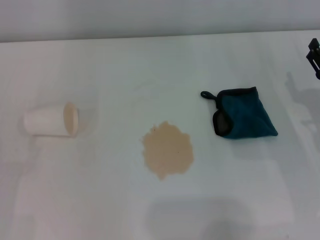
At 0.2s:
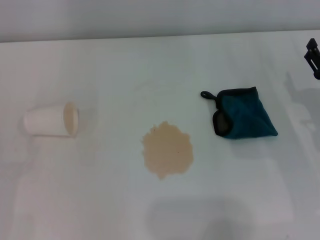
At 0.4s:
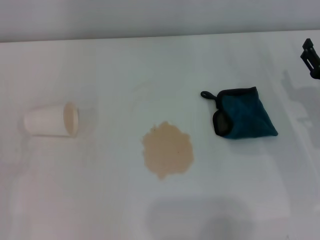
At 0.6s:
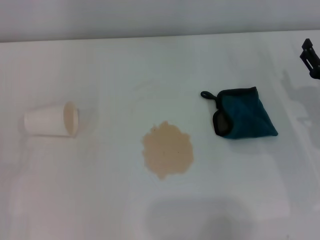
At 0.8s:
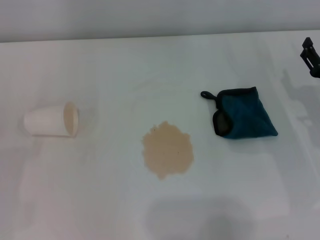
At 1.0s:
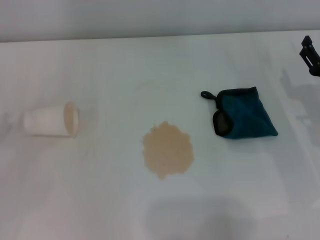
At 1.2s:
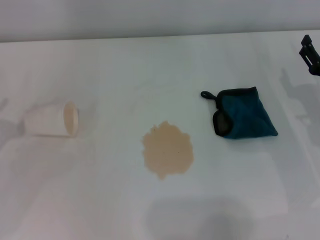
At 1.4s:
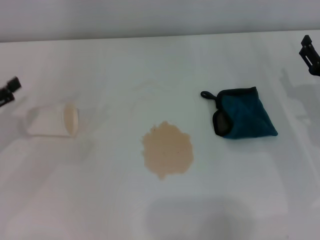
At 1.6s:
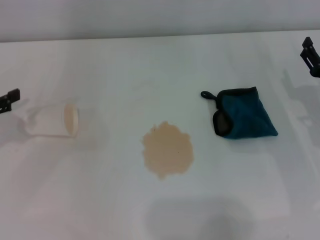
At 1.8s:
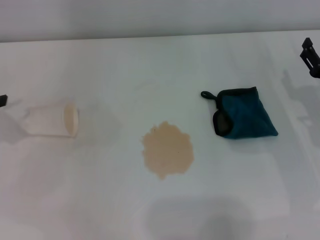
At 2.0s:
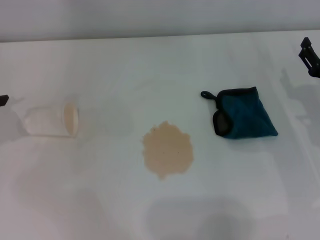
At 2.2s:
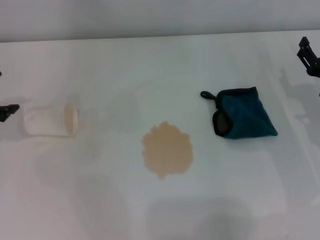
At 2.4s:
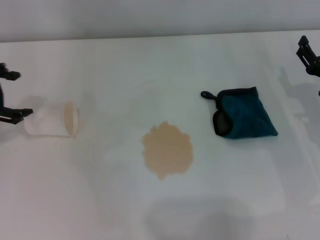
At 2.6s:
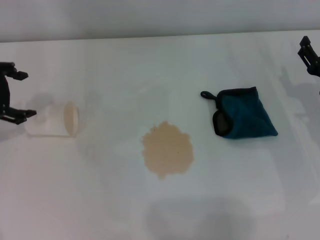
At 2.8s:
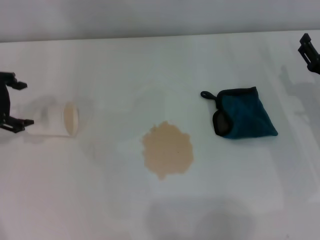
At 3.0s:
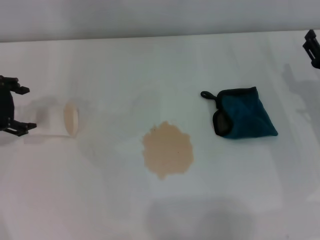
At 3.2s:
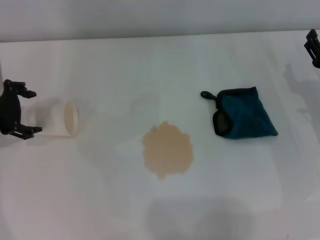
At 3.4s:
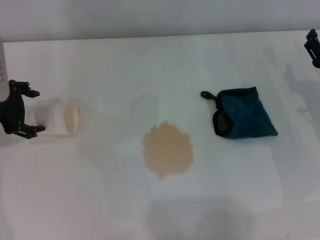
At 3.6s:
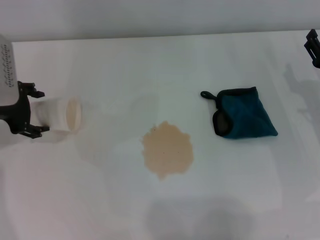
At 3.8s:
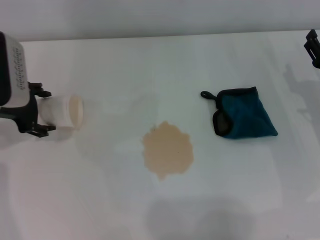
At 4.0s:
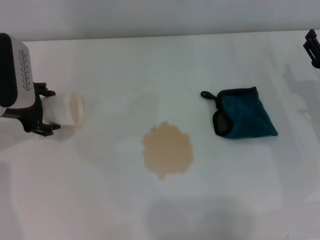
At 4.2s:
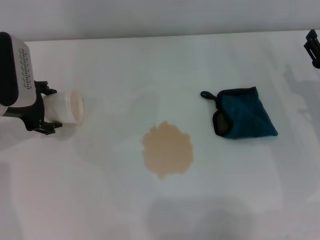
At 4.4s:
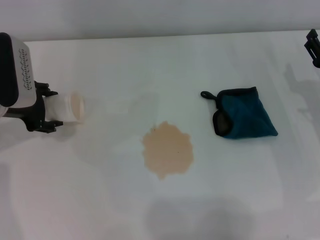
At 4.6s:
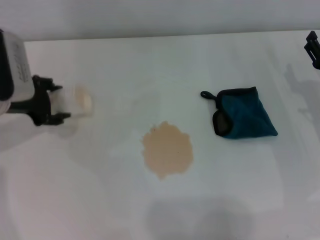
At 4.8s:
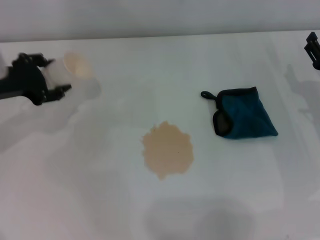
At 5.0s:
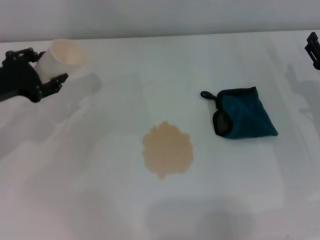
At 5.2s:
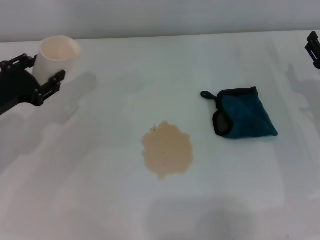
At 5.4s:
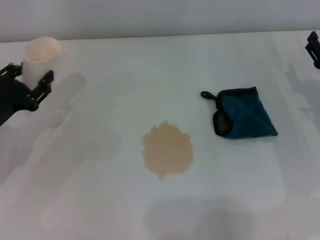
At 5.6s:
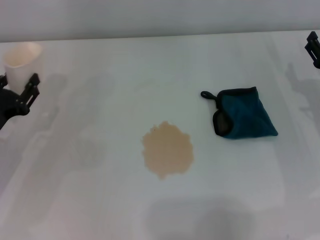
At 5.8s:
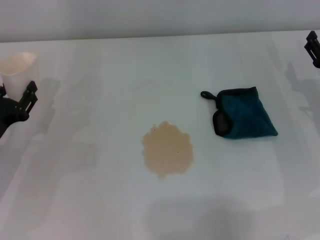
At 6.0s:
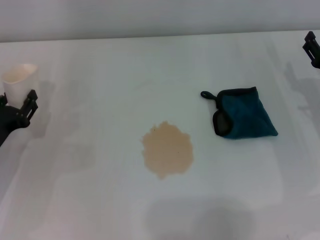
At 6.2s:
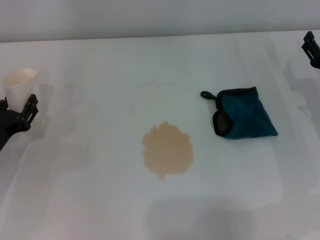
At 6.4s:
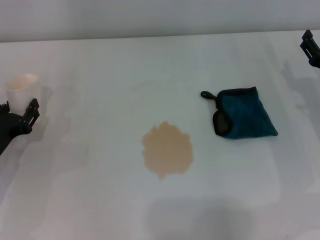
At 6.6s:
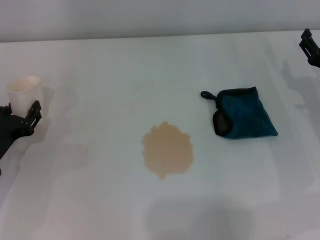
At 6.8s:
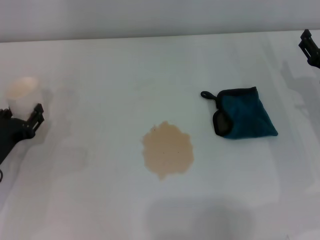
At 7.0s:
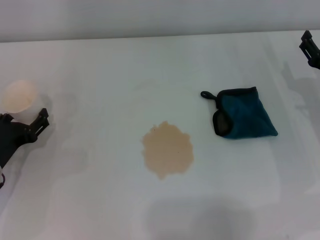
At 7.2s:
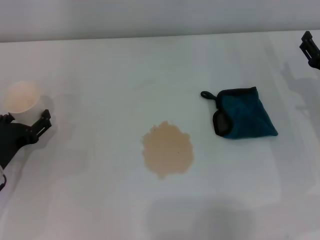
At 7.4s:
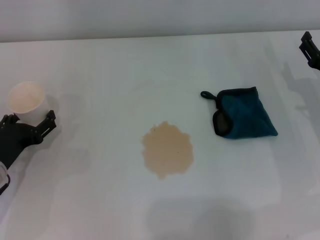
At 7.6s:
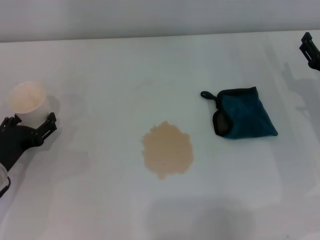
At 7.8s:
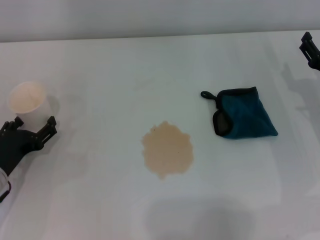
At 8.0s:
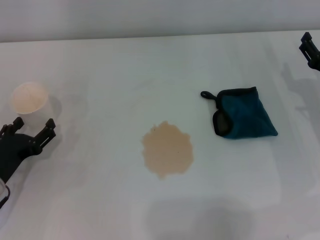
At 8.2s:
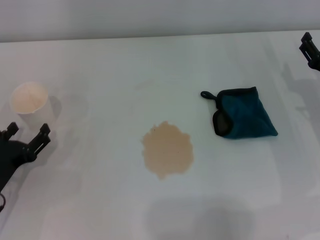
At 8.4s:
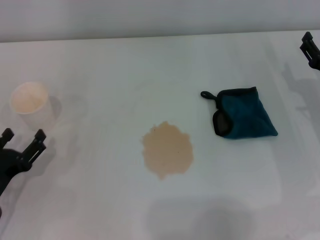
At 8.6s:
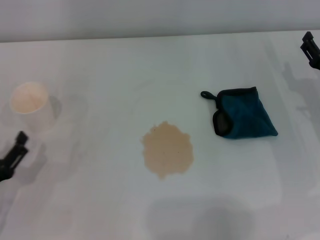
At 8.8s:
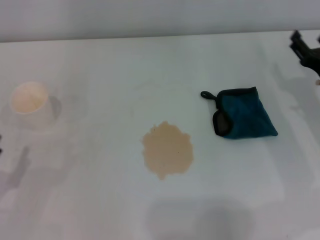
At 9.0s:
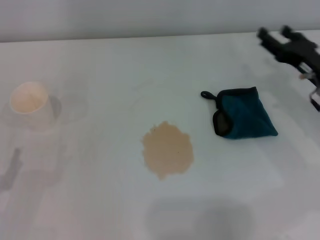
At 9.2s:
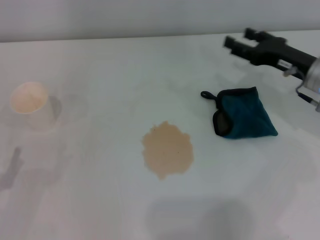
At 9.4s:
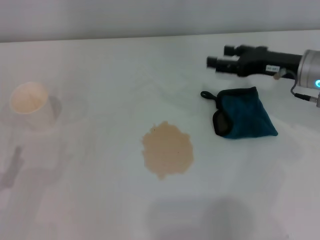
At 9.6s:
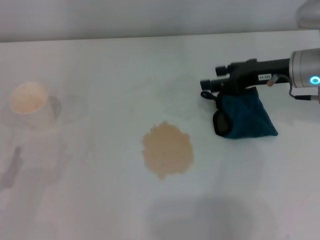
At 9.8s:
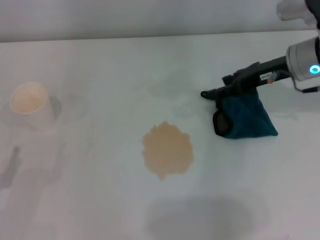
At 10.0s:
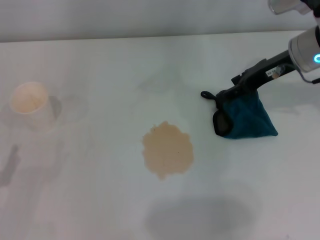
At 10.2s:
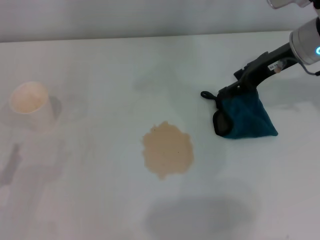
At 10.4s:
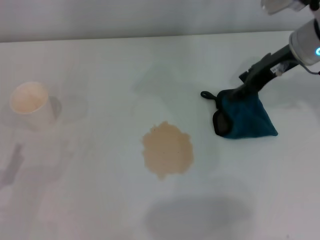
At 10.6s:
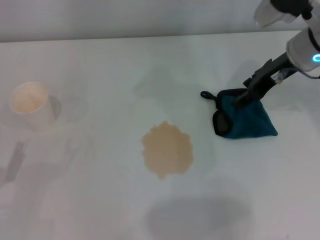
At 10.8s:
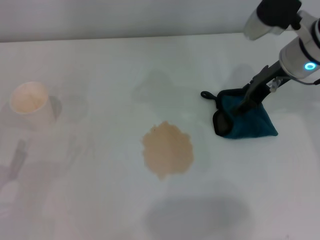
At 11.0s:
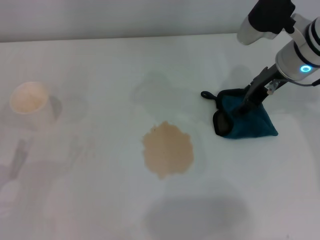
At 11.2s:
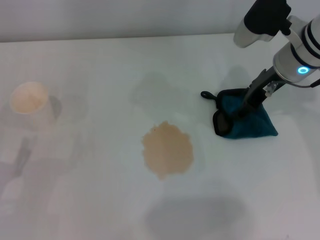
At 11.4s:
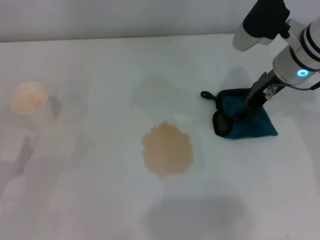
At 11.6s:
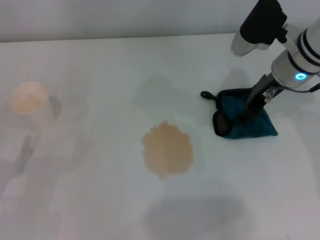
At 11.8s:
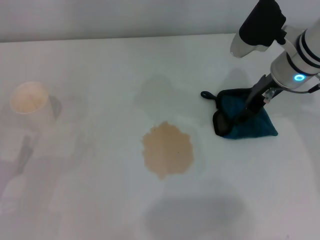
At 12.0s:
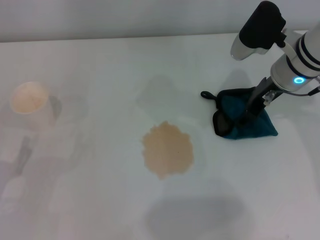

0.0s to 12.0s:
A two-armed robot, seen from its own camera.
Step, 0.0s to 4.2s: Grasp the paper cup with the left gripper.
Step, 4.4s to 7.4s: Stand the paper cup upright with the left gripper.
1.6s to 3.0s: The left gripper moves to the right and forward, about 10 cm.
3.0s to 4.4s: The left gripper moves approximately 5 cm.
4.4s to 6.0s: The left gripper shifts approximately 15 cm downward and backward, and closes up.
6.0s to 7.6s: The left gripper opens up.
7.6s to 9.0s: The left gripper shifts some 10 cm backward.
9.0s to 10.4s: The right gripper goes about 15 cm upward, forward and to the left.
10.4s to 12.0s: The grippers make only small movements.

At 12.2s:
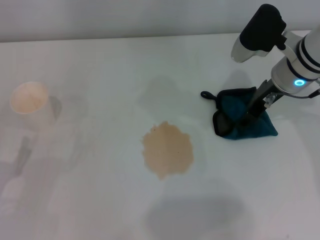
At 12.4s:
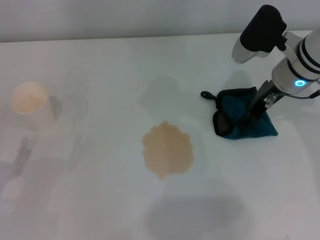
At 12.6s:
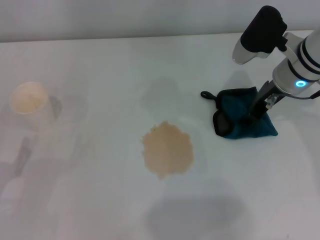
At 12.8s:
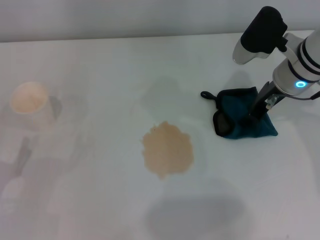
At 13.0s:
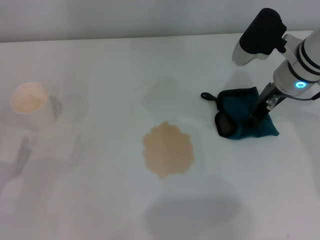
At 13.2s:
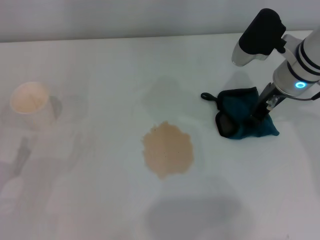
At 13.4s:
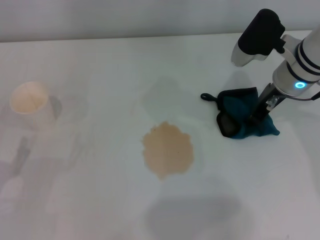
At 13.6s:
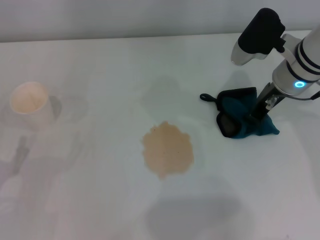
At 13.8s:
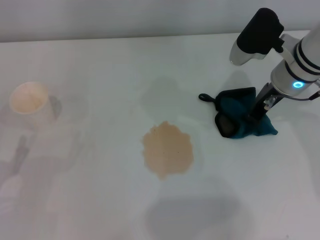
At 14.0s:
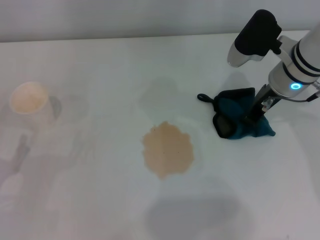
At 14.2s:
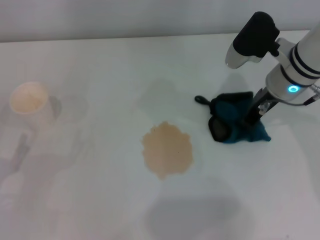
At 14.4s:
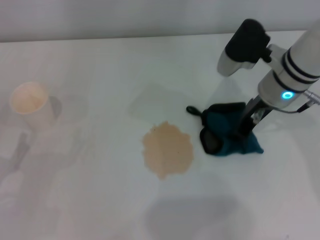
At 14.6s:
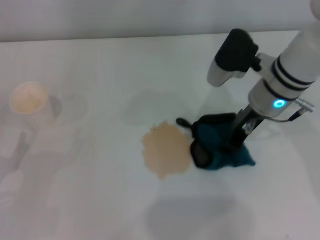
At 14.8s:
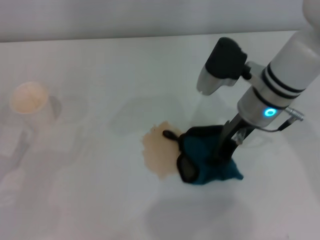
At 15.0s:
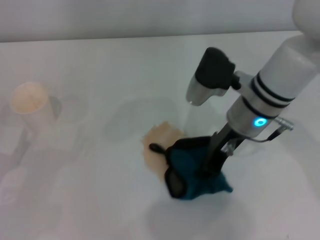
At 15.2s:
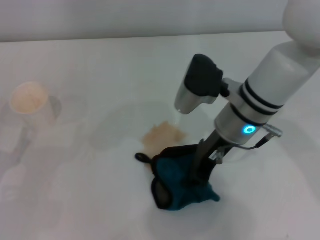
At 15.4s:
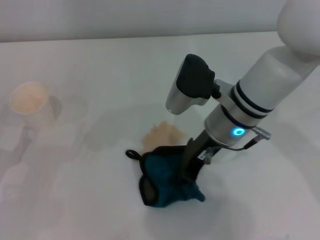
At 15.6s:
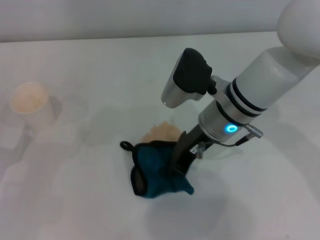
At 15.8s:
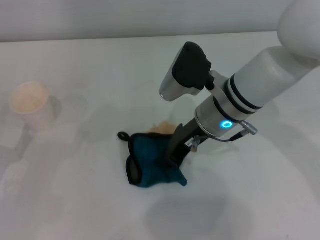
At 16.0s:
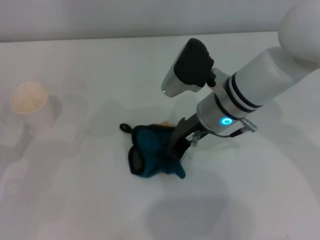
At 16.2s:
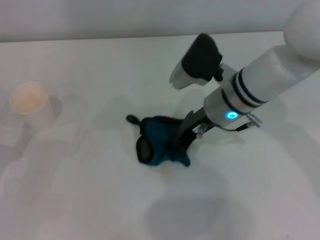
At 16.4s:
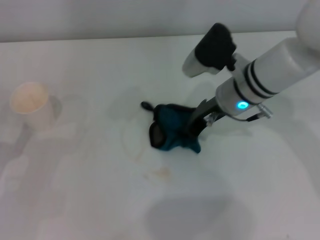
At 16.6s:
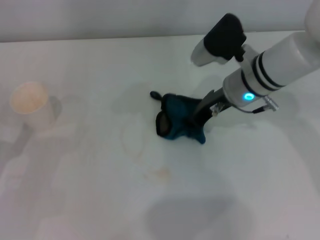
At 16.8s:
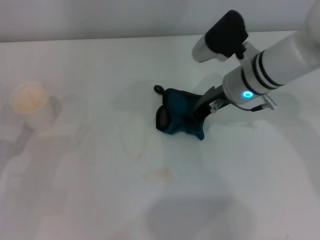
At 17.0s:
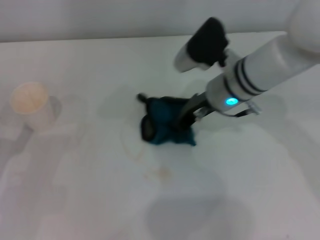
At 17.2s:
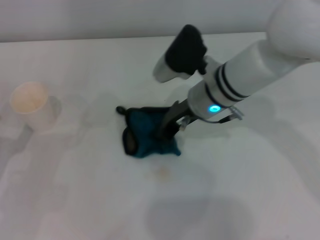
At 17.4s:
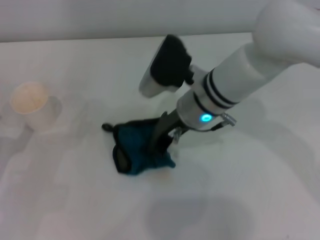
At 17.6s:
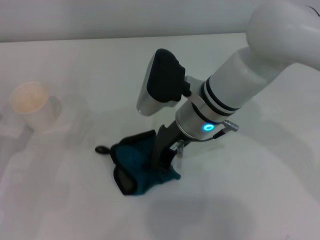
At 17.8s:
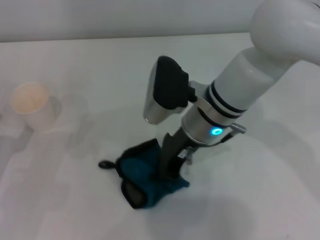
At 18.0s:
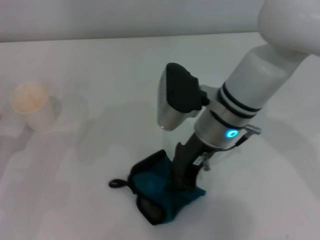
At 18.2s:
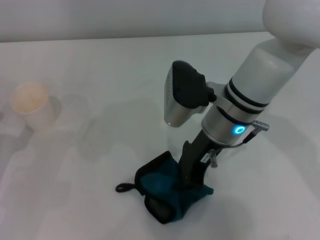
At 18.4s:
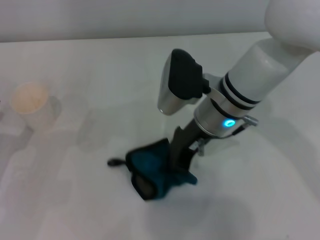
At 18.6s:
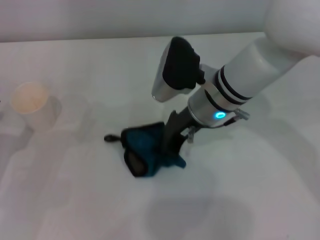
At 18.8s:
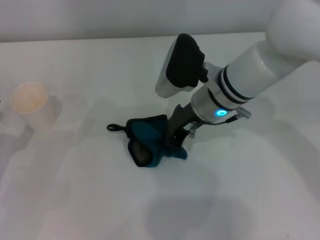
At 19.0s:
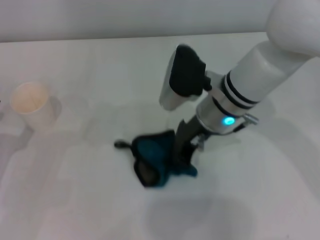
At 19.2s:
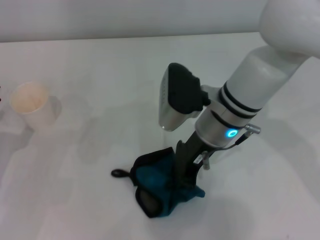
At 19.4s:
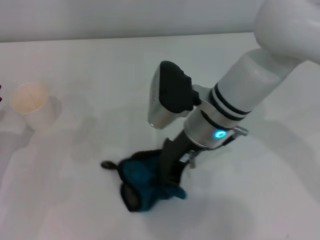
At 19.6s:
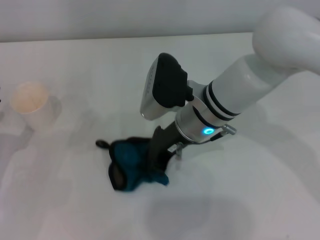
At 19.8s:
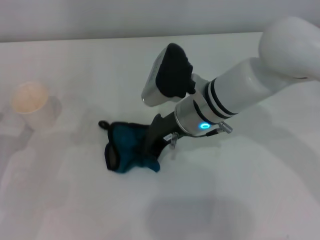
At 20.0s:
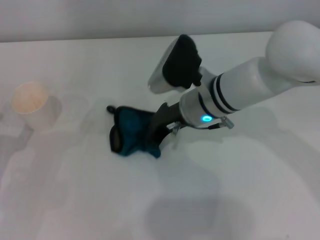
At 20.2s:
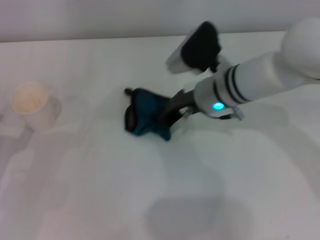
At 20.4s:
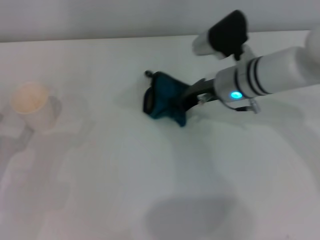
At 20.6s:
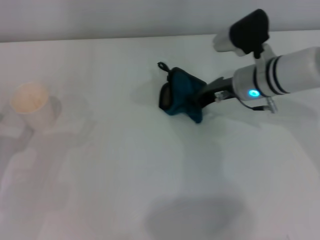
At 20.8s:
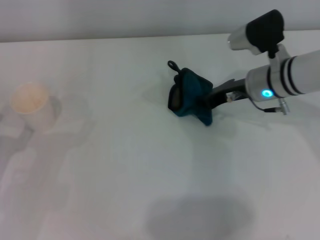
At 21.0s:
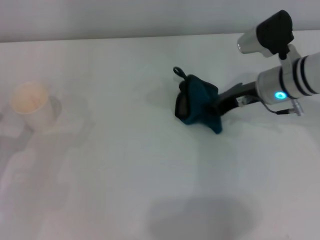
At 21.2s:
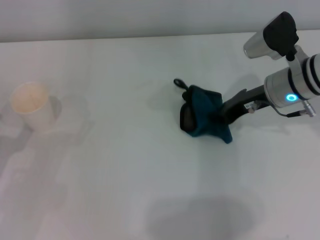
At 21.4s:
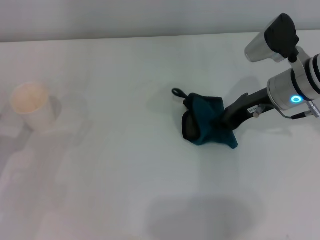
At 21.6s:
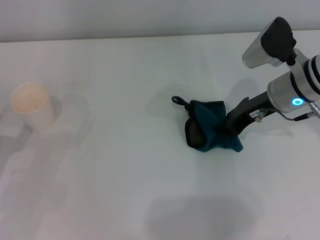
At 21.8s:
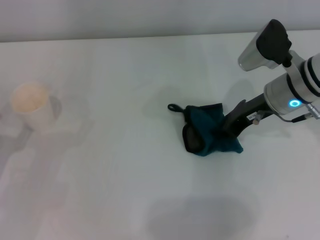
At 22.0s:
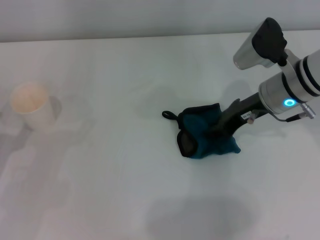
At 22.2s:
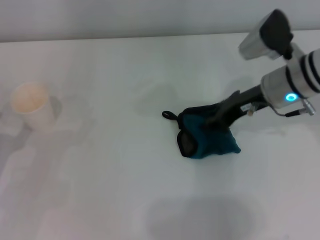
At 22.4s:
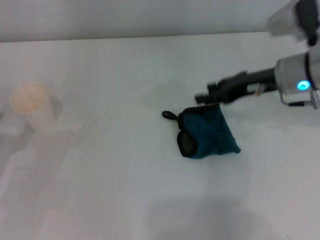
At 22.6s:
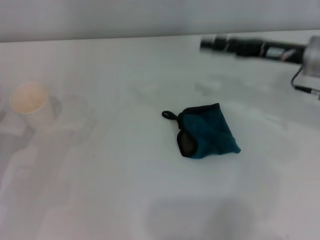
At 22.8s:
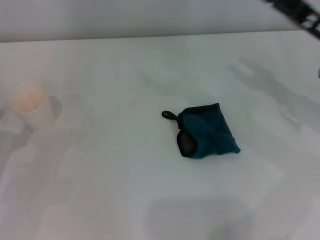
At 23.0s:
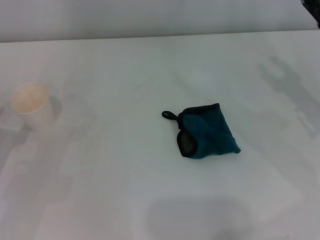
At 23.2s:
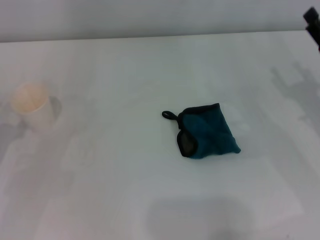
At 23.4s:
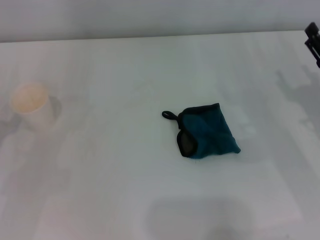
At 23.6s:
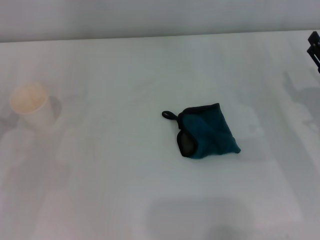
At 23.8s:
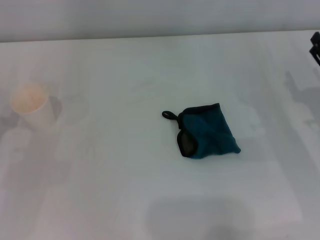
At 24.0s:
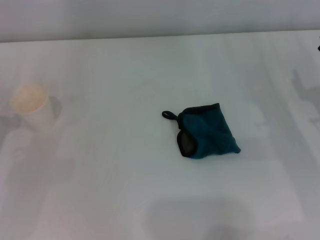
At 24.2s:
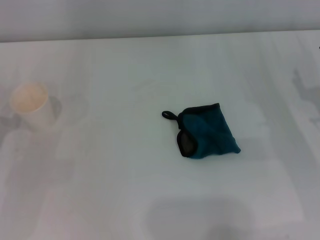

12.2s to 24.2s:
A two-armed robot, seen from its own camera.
Step, 14.2s to 21.0s: Wipe the stains off the table with the right gripper.
Step, 21.2s to 21.8s: Place the rag on the table with the right gripper.
12.2s to 13.8s: The right gripper closes.
13.8s to 15.2s: The right gripper shifts some 10 cm to the left and backward.
15.2s to 16.6s: The right gripper heads forward, covering some 5 cm.
16.6s to 18.2s: The right gripper heads to the left, covering approximately 5 cm.
19.8s to 21.2s: The right gripper heads to the right, covering about 15 cm.
21.2s to 22.6s: The right gripper moves about 5 cm, and opens.
22.6s to 24.2s: The right gripper shifts some 15 cm downward, backward and to the right.
